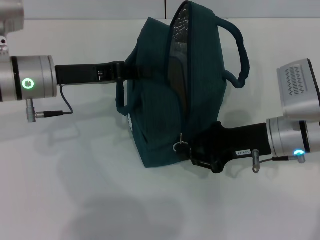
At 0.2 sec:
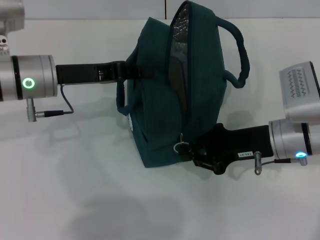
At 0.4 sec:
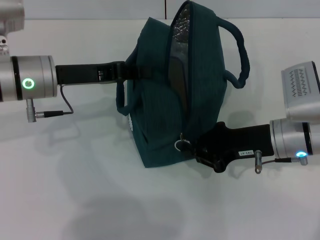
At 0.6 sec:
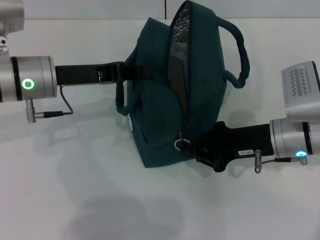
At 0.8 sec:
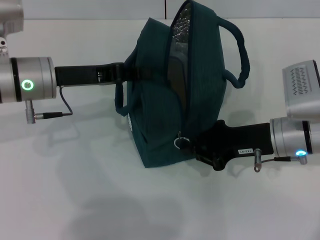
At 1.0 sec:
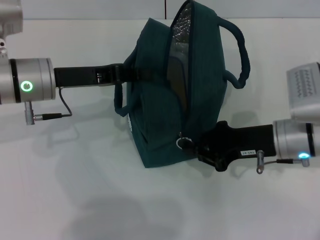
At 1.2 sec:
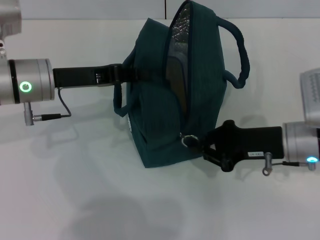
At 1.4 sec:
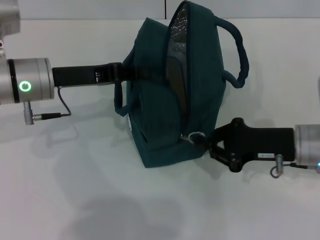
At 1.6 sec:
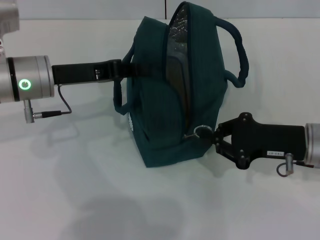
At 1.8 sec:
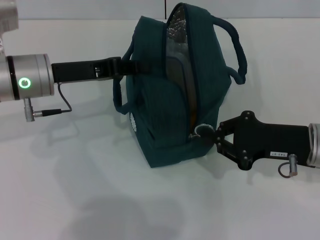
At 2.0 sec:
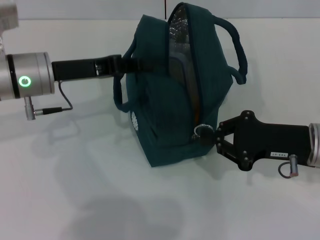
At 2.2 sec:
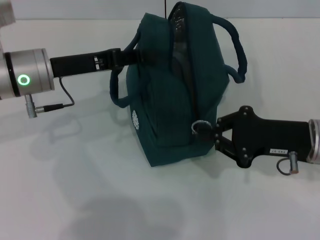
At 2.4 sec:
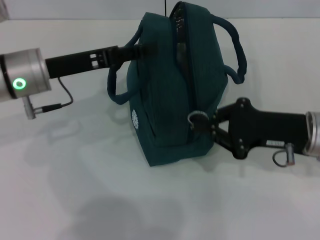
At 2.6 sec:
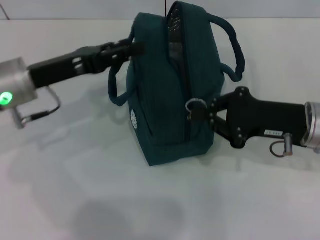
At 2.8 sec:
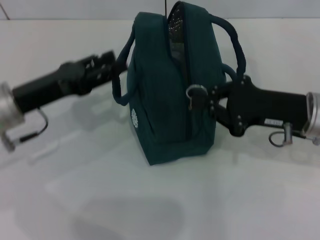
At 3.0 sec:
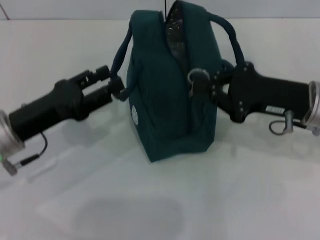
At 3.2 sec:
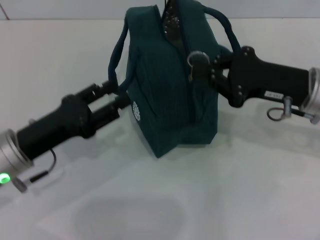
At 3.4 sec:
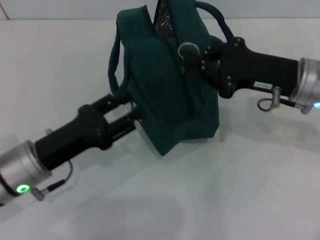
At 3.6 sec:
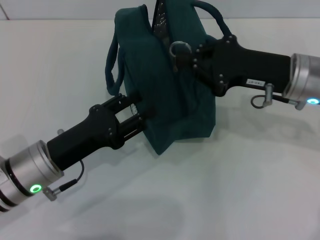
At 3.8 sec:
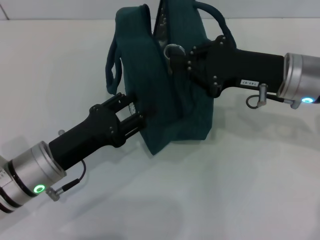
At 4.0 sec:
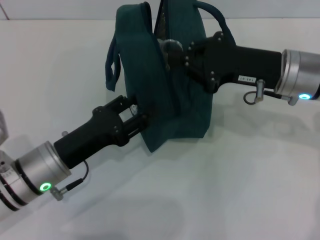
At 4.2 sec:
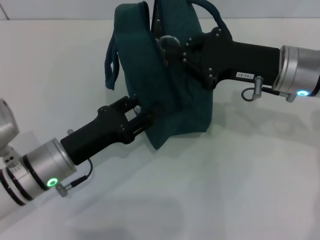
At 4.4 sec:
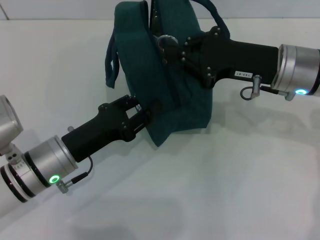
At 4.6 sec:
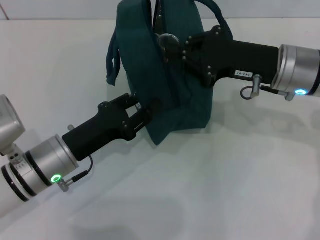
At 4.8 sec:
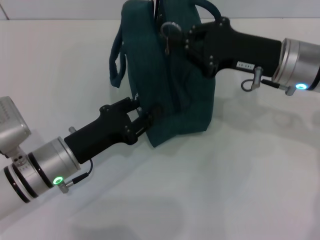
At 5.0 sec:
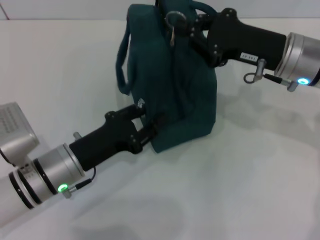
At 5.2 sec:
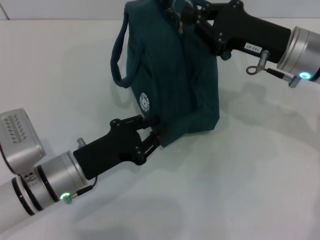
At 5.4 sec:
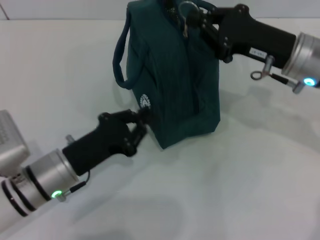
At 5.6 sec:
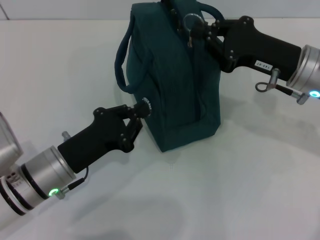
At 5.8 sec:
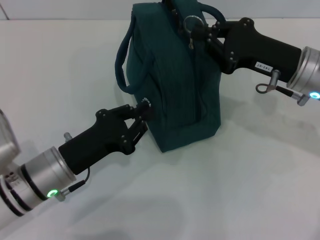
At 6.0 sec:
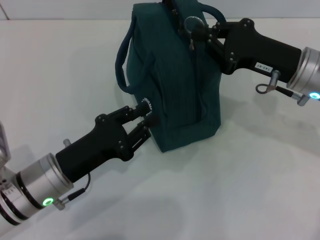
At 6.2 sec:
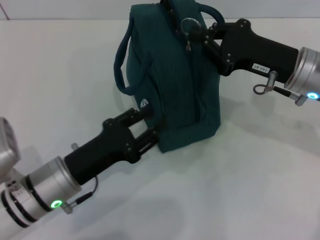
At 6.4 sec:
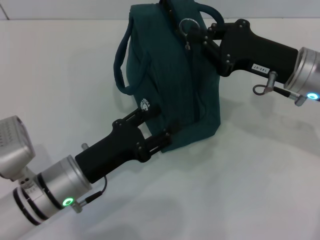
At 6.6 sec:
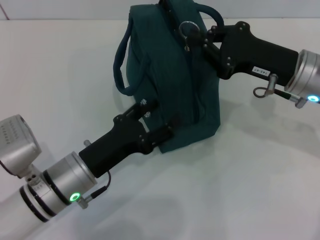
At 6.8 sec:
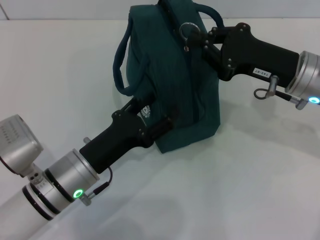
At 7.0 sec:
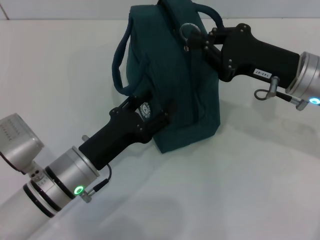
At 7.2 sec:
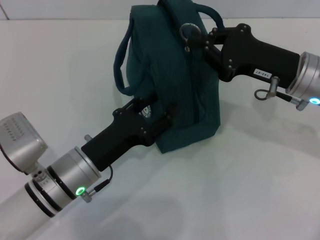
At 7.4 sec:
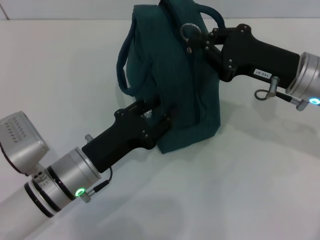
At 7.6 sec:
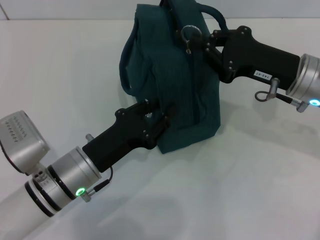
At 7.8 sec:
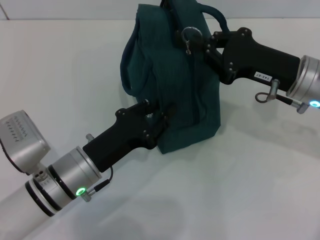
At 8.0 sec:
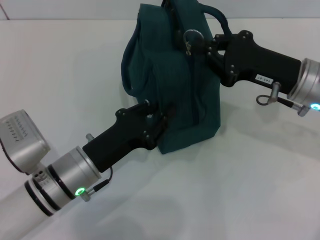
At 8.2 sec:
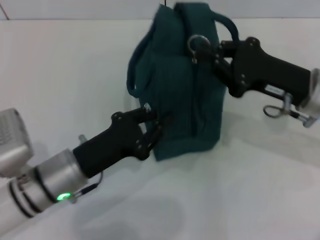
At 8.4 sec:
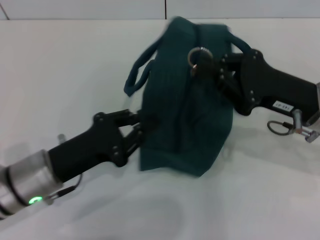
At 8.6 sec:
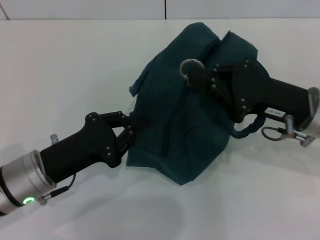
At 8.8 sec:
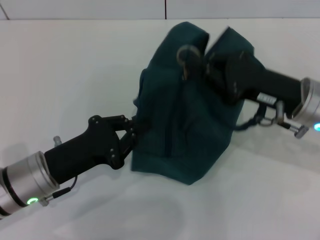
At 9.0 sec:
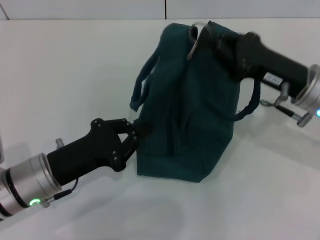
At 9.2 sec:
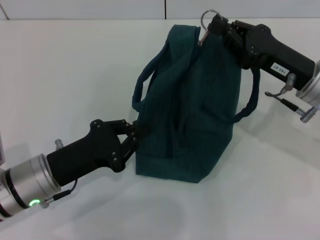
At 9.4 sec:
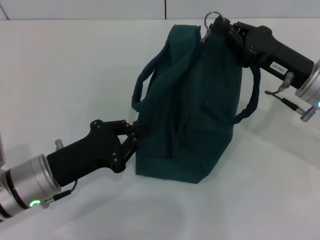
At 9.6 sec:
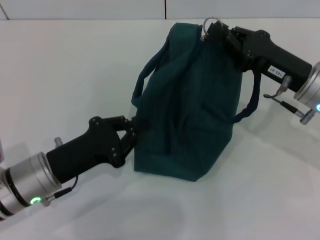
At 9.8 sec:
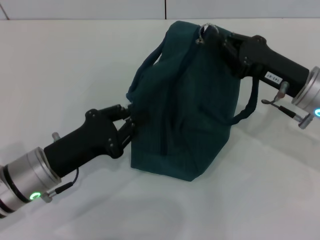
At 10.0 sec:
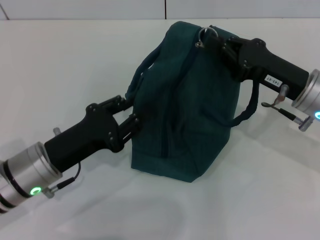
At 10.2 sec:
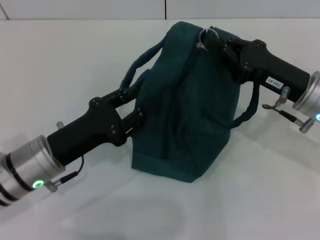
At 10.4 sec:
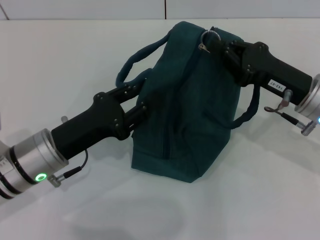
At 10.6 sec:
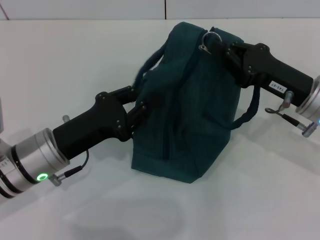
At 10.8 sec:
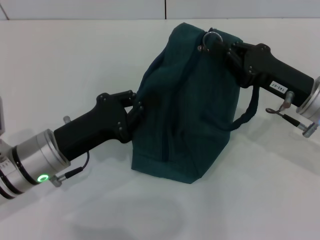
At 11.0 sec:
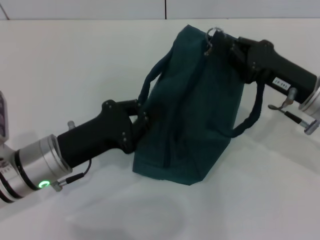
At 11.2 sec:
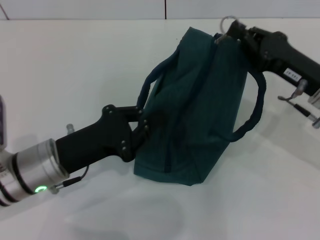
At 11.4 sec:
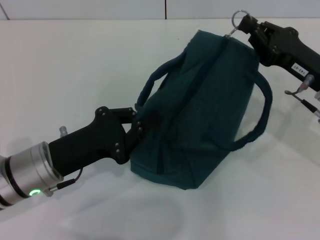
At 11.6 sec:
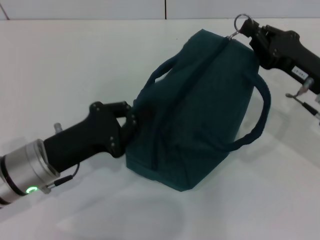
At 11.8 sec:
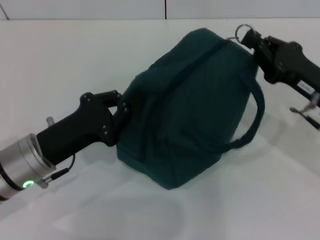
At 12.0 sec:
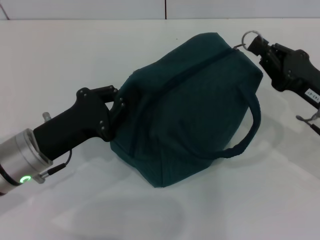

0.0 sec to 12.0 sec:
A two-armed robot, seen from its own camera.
Step, 0.0 sec to 2.4 sec: Hold the lunch bag with your left hand.
0.0 sec to 1.6 sec: The right gripper ends up roughly 5 cm from where it was.
1.6 sec to 3.0 sec: The left gripper shifts about 10 cm backward, and opens its fingers.
3.0 sec to 4.4 sec: The left gripper moves to the right, roughly 5 cm. Meanwhile the right gripper shifts by approximately 5 cm.
4.4 sec to 6.0 sec: The left gripper closes its fingers.
6.0 sec to 7.6 sec: The left gripper opens, then closes once more.
7.6 sec to 9.0 sec: The left gripper heads to the left, covering about 5 cm, and closes its fingers.
9.0 sec to 10.4 sec: The left gripper opens its fingers.
10.4 sec to 12.0 sec: The left gripper closes its fingers.

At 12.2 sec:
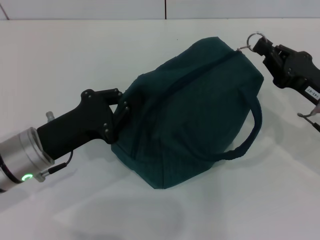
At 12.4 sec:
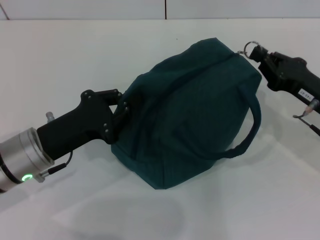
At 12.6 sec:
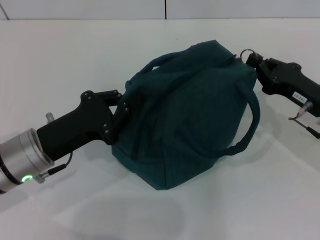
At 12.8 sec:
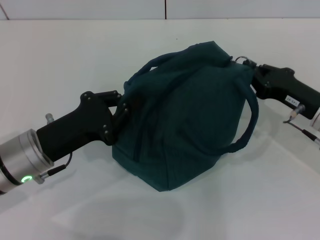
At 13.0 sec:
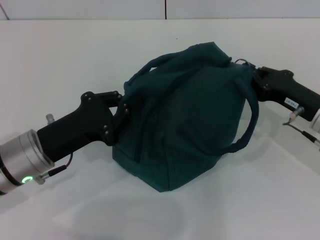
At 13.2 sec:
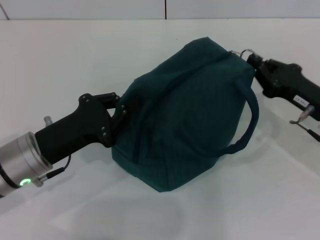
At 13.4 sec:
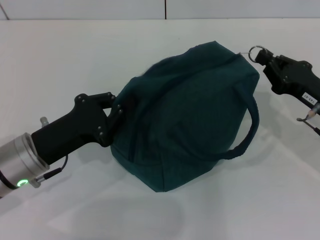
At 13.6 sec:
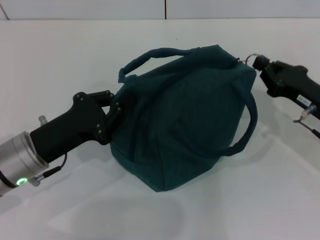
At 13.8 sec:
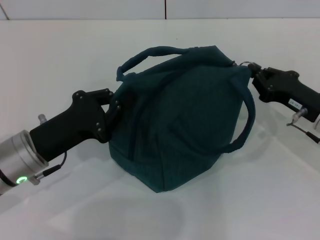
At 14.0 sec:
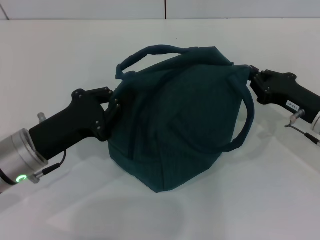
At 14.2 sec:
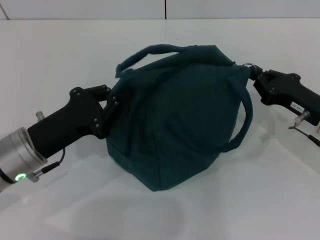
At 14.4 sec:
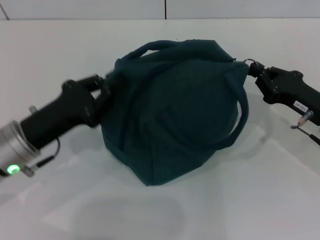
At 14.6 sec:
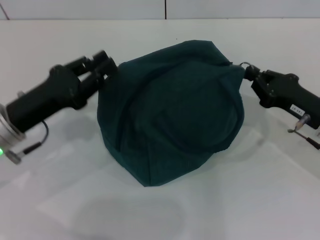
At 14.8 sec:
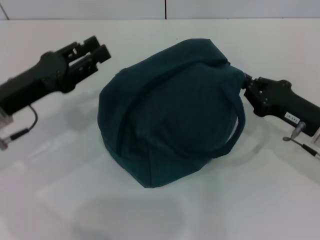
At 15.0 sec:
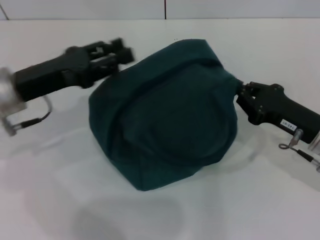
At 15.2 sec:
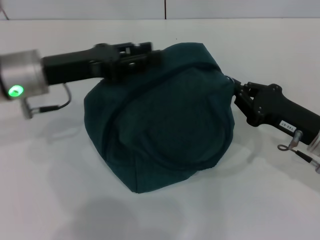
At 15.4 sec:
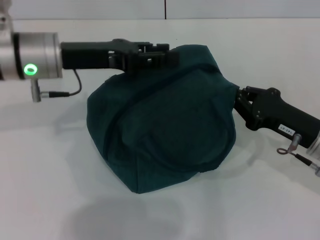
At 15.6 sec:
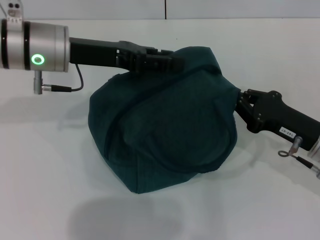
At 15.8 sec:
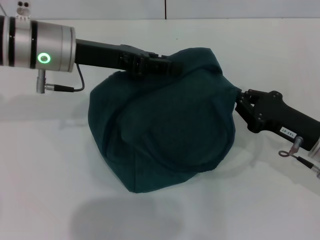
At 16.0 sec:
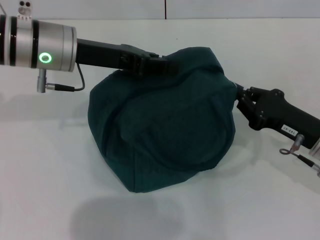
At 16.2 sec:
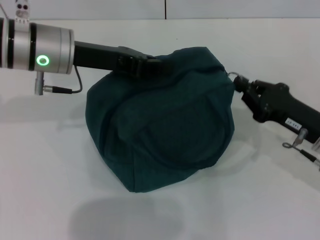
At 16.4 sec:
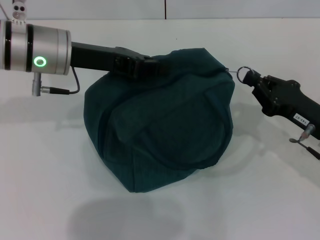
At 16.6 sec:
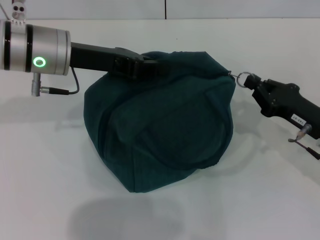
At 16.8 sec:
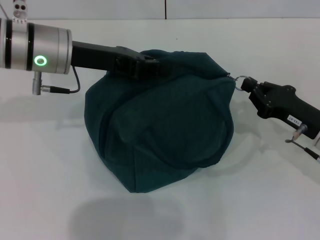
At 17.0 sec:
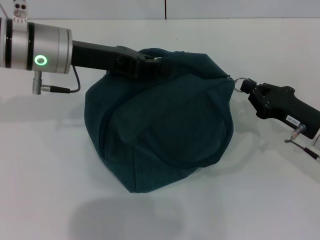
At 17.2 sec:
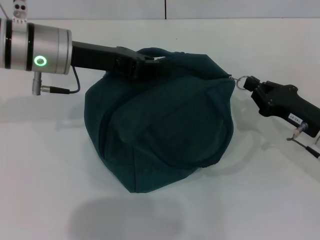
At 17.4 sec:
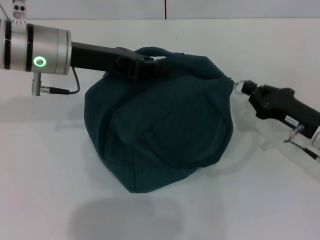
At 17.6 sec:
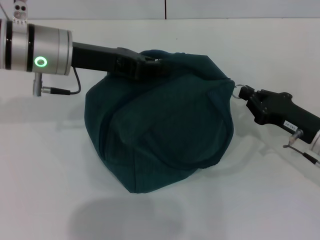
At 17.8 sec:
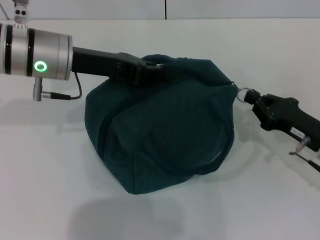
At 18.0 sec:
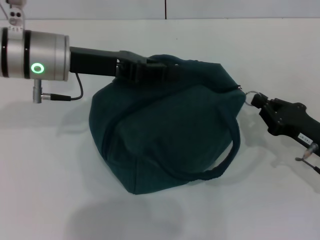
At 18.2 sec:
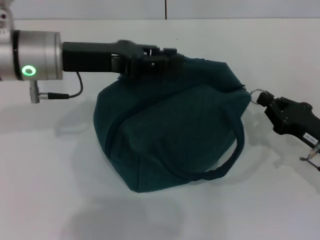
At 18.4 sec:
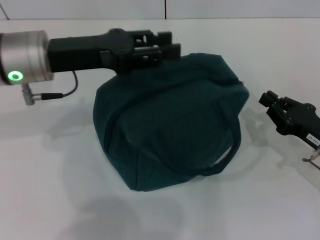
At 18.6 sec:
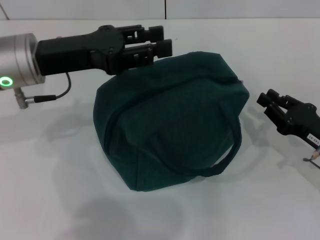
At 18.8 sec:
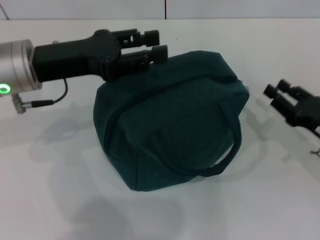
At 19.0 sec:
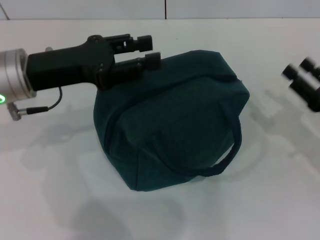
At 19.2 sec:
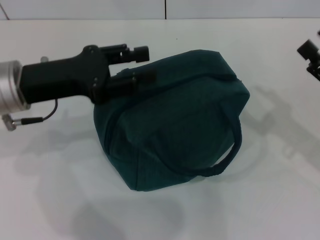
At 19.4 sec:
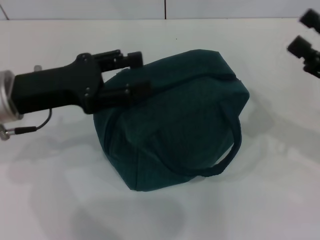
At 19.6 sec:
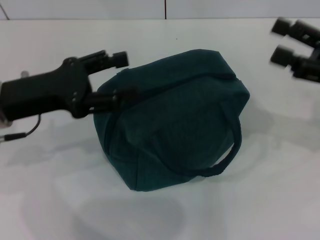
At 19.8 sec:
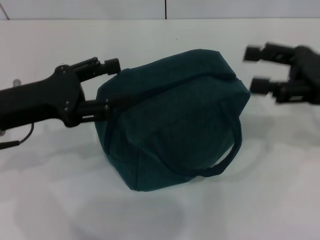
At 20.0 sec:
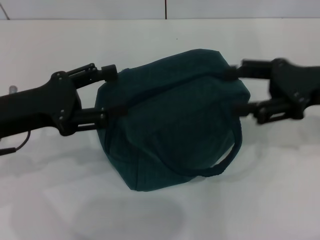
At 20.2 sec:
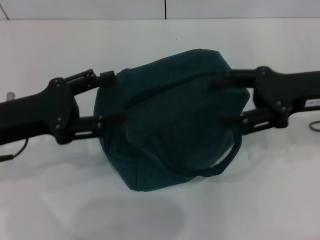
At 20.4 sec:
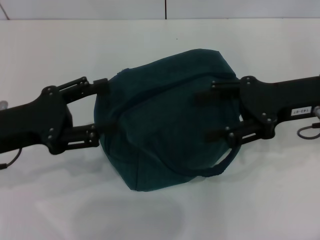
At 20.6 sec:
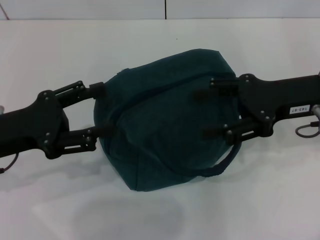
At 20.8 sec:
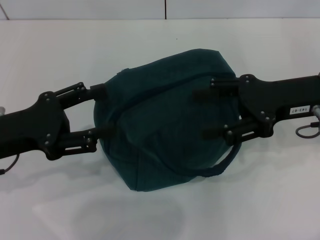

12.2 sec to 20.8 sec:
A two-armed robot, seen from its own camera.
Step, 12.2 sec to 18.2 sec: Zip up the lunch bag with your right hand.
12.2 sec to 13.6 sec: There are only small adjustments of the grippers.
13.6 sec to 15.0 sec: The left gripper travels upward and forward by about 10 cm, and opens up.
15.0 sec to 16.6 sec: The left gripper shifts roughly 10 cm to the right and forward, and closes up.
16.6 sec to 18.0 sec: The grippers stay close to where they were, moving slightly.
18.0 sec to 19.4 sec: The right gripper shifts some 10 cm upward, and opens; the left gripper moves backward and to the left, some 10 cm, and opens.
19.4 sec to 20.8 sec: The right gripper is displaced to the left by approximately 10 cm. Meanwhile the left gripper goes about 5 cm backward.
